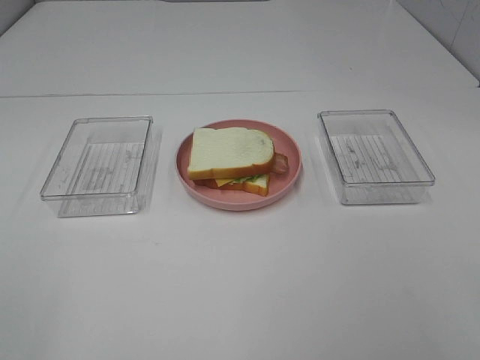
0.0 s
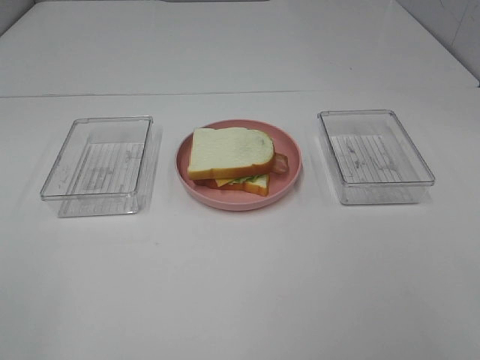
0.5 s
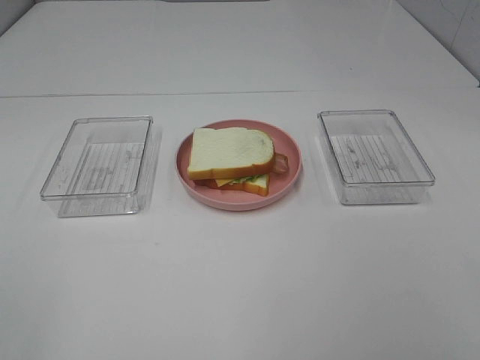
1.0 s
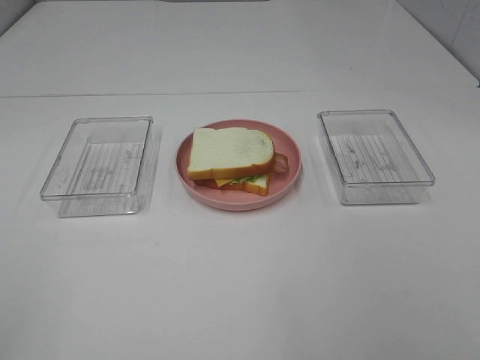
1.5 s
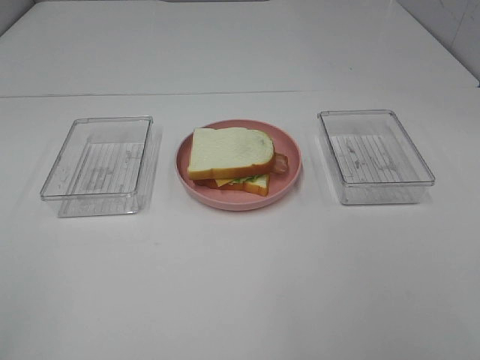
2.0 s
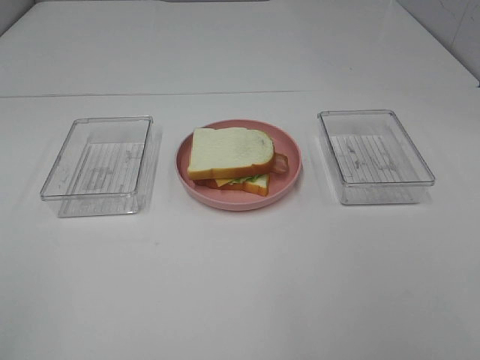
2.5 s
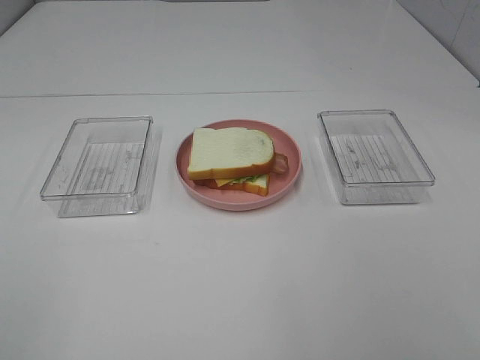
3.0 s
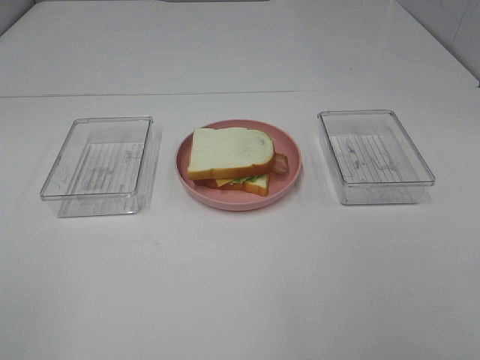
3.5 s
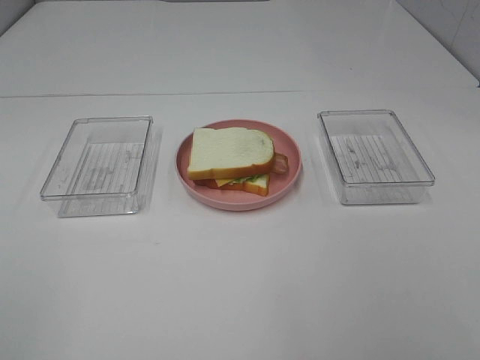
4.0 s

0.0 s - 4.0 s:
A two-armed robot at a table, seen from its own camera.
Task of the whole recording: Make sandwiches.
2.0 s - 4.0 s: The two grippers keep their place.

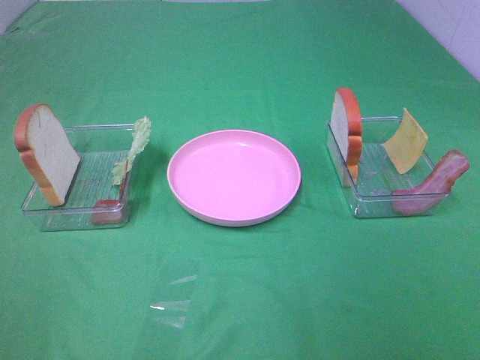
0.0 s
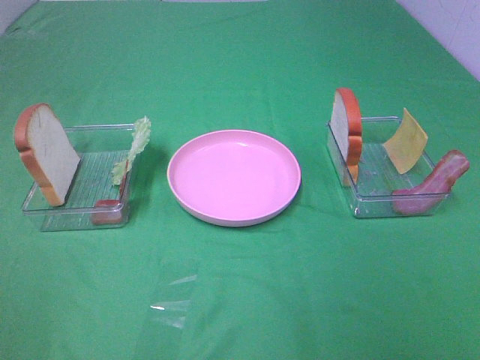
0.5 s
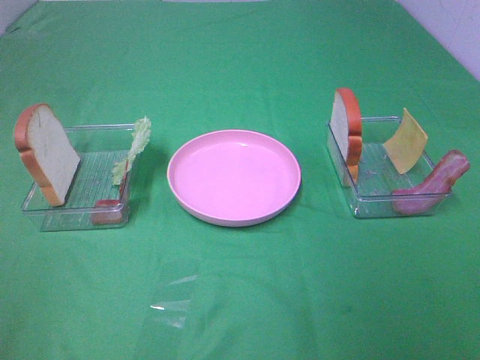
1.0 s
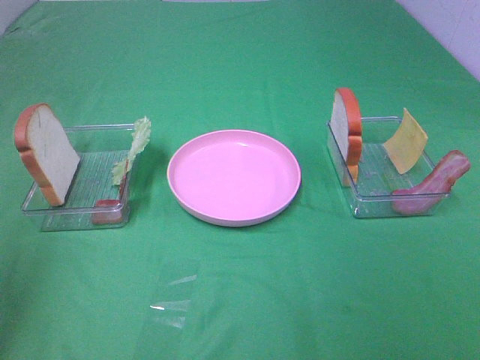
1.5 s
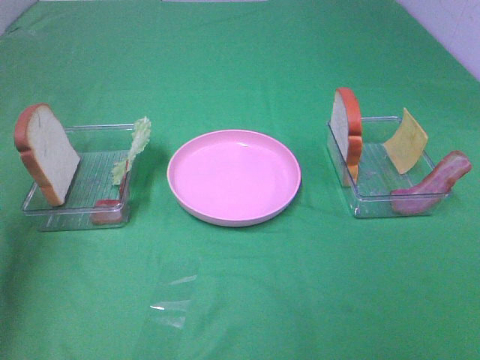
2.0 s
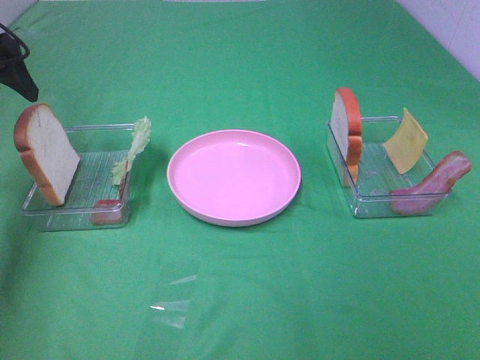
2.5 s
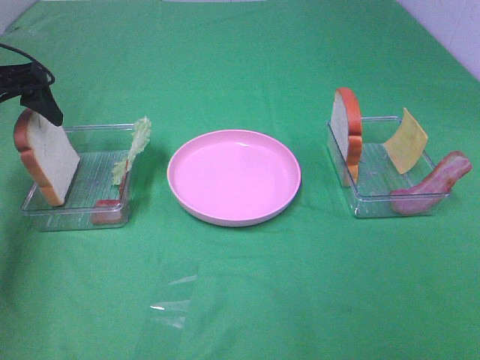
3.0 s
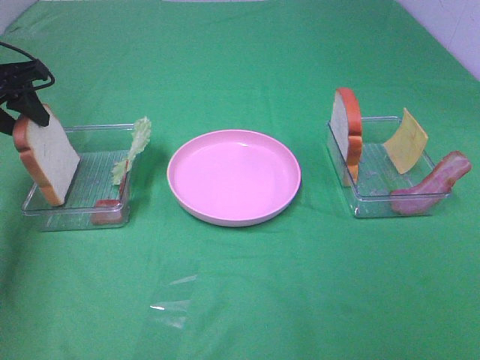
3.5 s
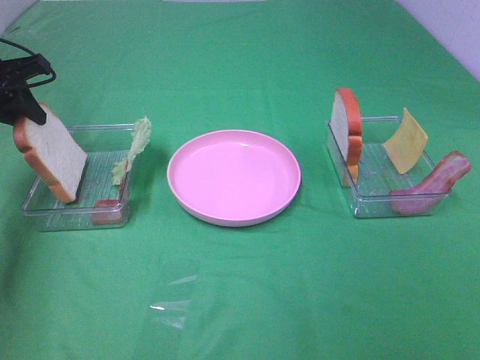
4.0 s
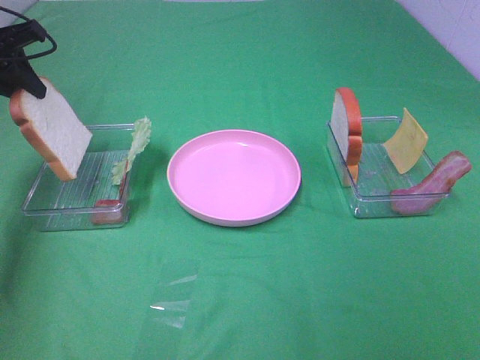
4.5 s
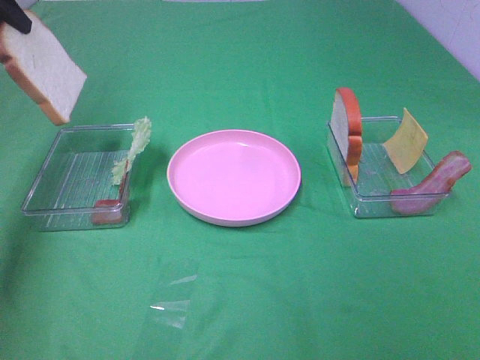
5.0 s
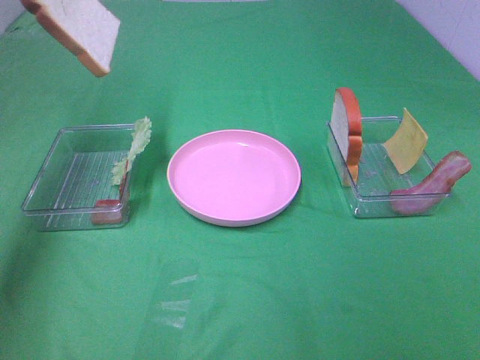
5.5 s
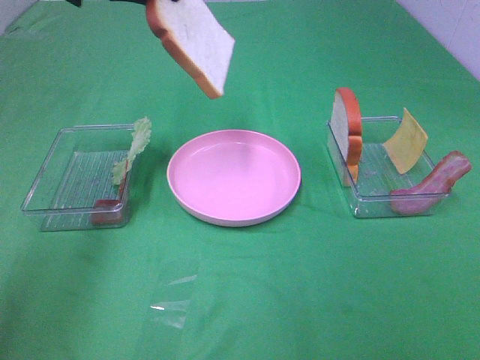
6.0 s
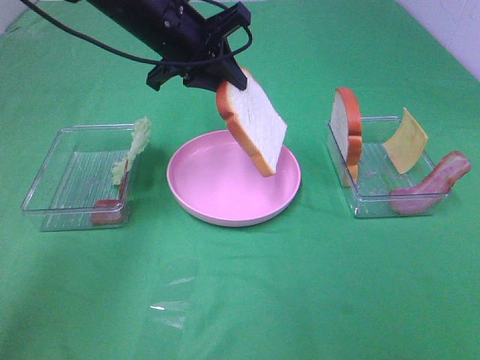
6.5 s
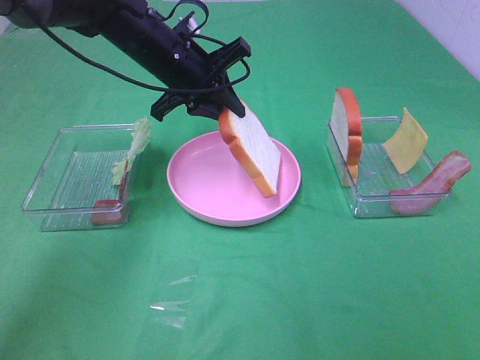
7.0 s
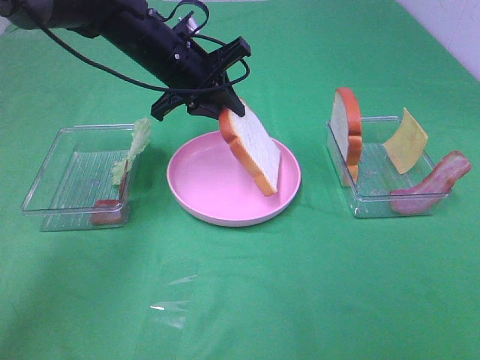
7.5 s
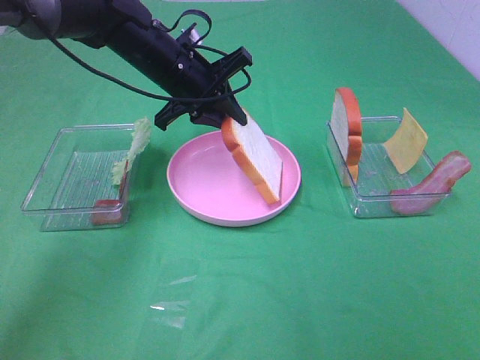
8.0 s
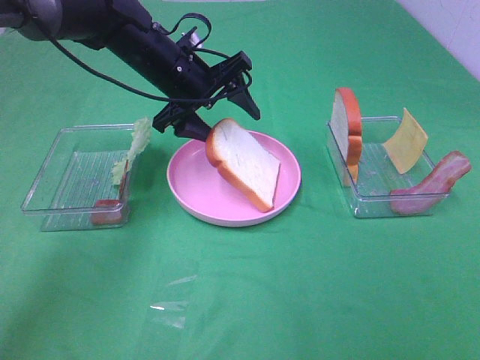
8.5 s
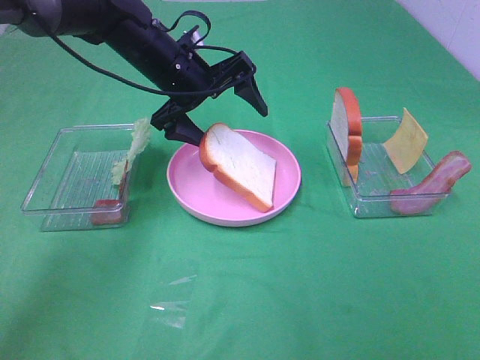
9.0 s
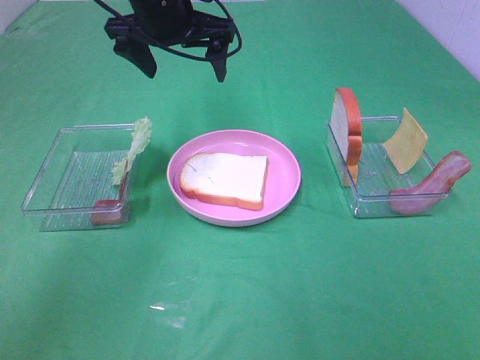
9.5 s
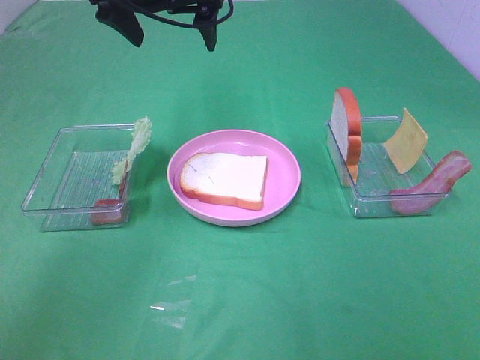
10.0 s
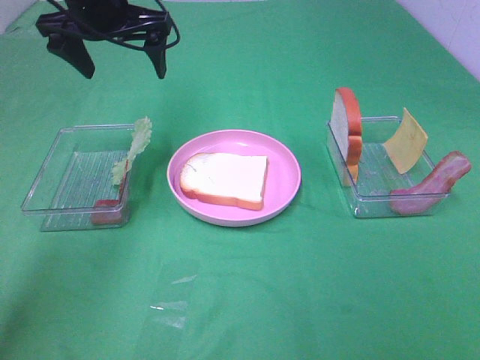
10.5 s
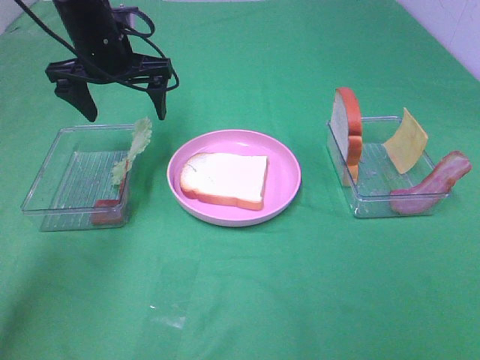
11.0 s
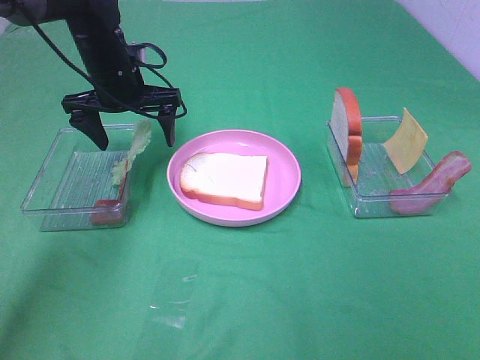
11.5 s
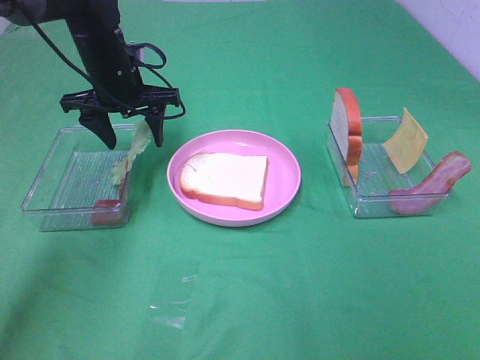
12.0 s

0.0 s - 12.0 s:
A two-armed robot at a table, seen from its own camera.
Task of the whole recording: Make sandwiches.
Step, 0.0 s - 4.0 s: Left hand:grab the bread slice.
Step, 4.5 s - 9.0 s: Left hand:place the bread slice on the plate.
0.0 s - 2.0 s: The left gripper heads forward, covering about 30 cm.
2.0 s - 4.0 s: The left gripper travels forward and downward by about 15 cm, and closes up.
4.0 s - 6.0 s: The left gripper moves to the right and upward, some 20 cm.
6.0 s - 8.0 s: The left gripper is displaced downward and to the right by roughly 15 cm.
8.0 s - 10.0 s: The left gripper goes some 15 cm upward, and opens up.
10.0 s - 12.0 s: The left gripper shifts approximately 15 cm downward and to the left.

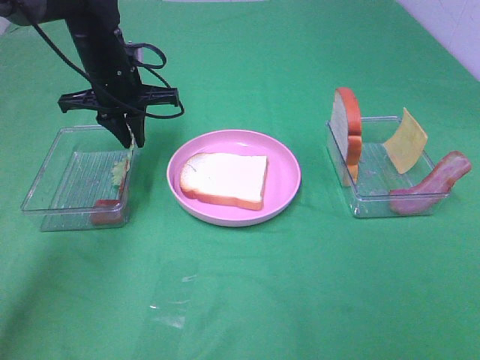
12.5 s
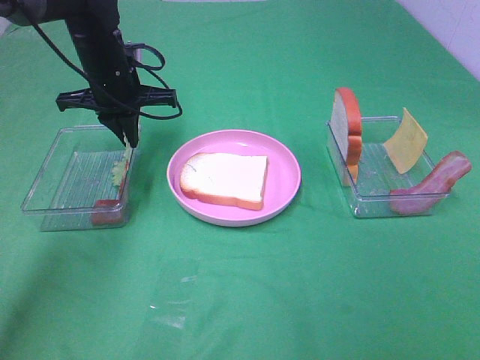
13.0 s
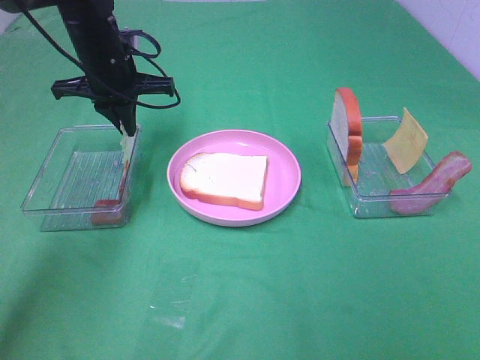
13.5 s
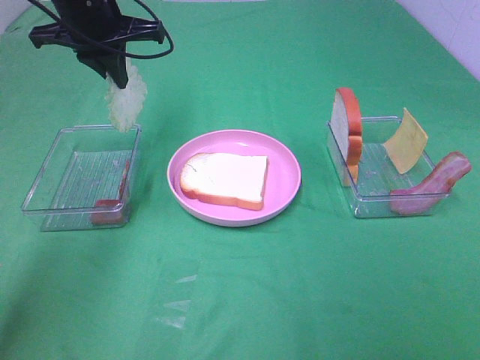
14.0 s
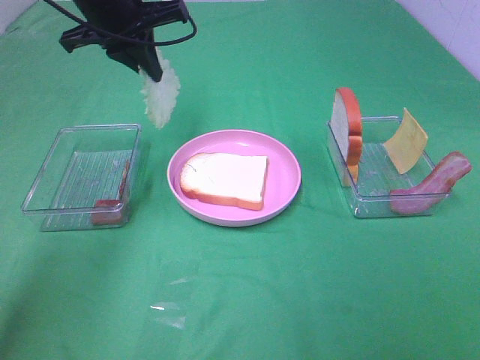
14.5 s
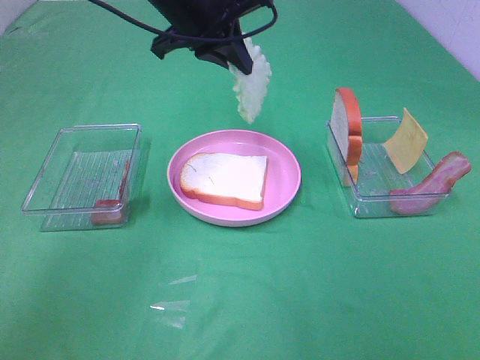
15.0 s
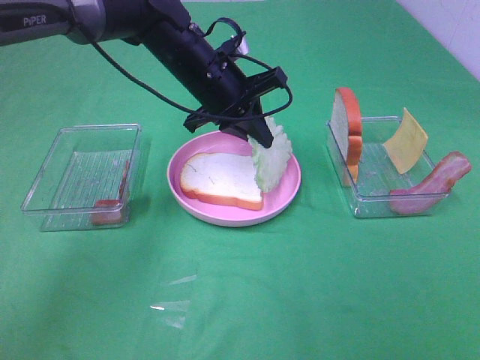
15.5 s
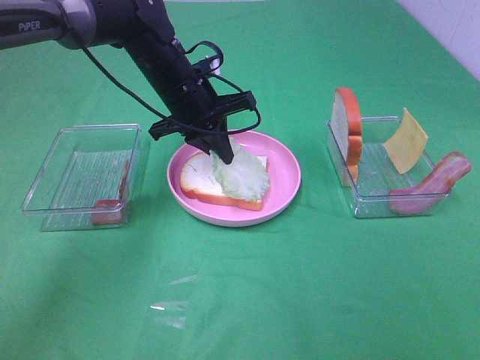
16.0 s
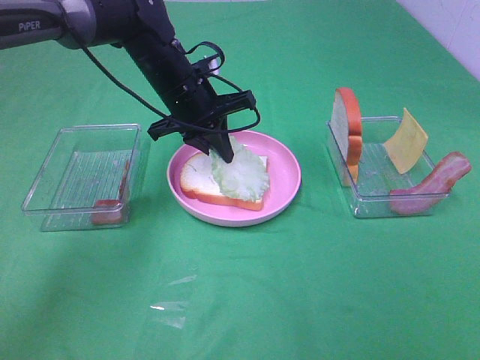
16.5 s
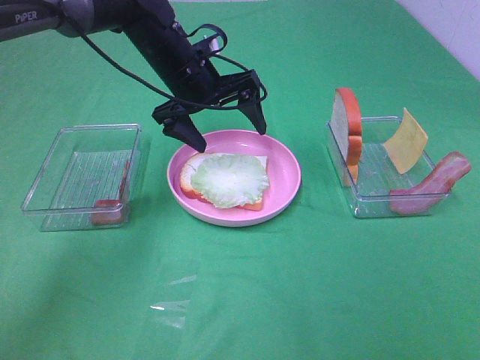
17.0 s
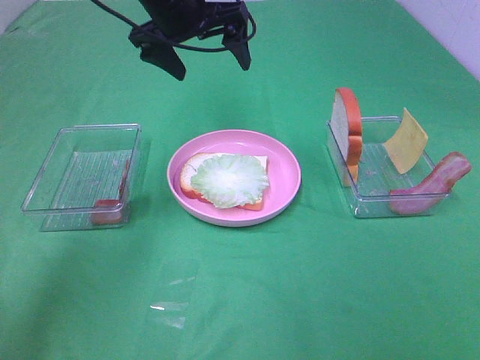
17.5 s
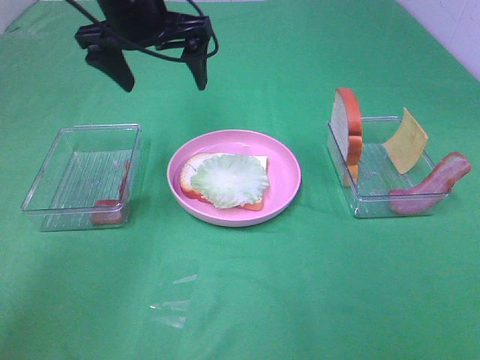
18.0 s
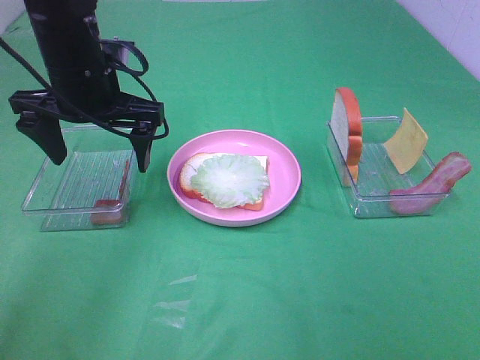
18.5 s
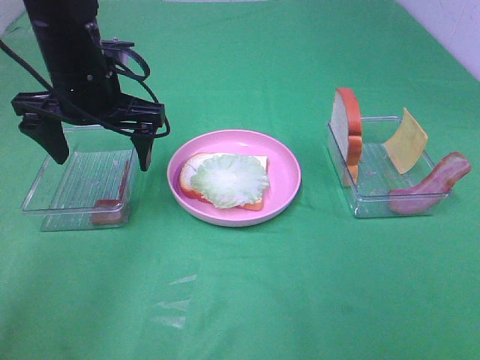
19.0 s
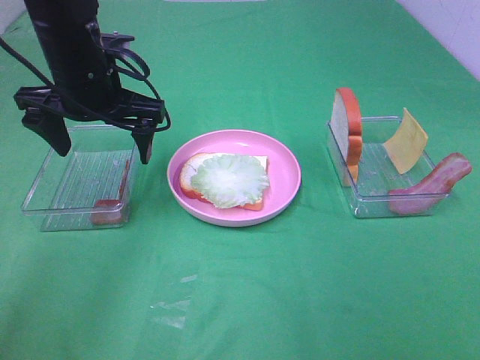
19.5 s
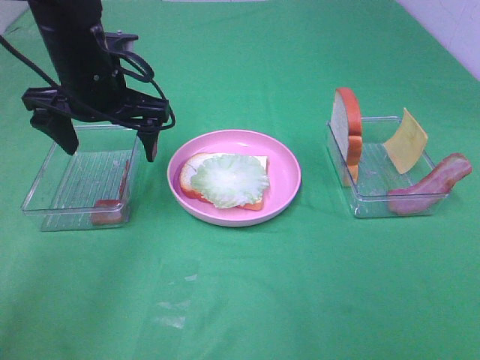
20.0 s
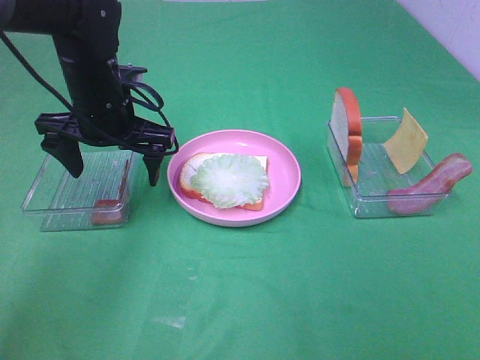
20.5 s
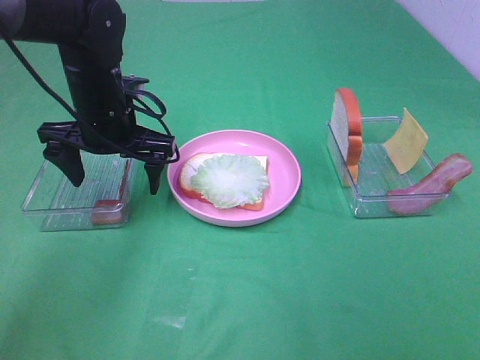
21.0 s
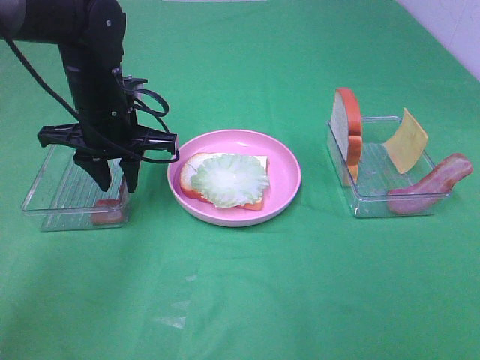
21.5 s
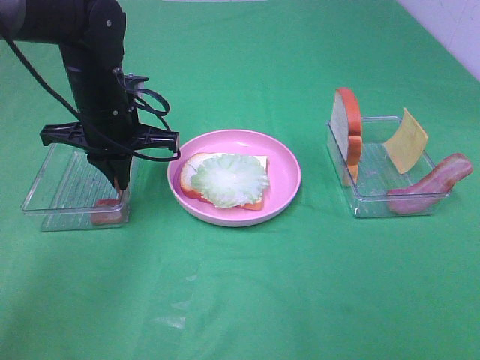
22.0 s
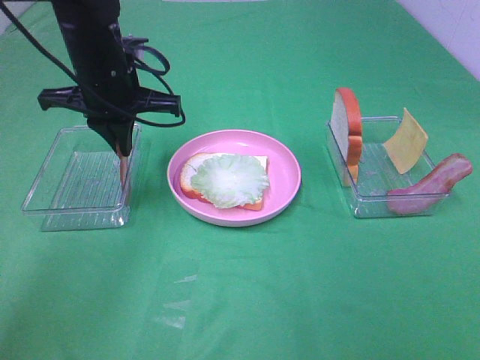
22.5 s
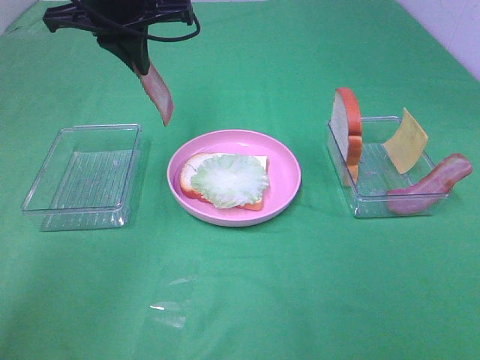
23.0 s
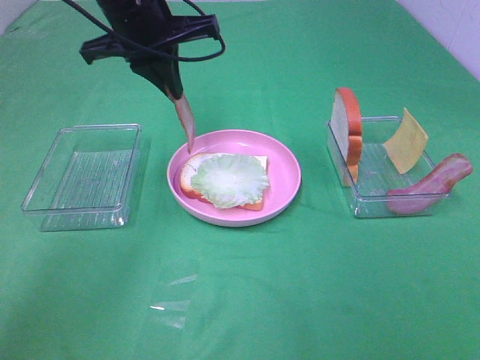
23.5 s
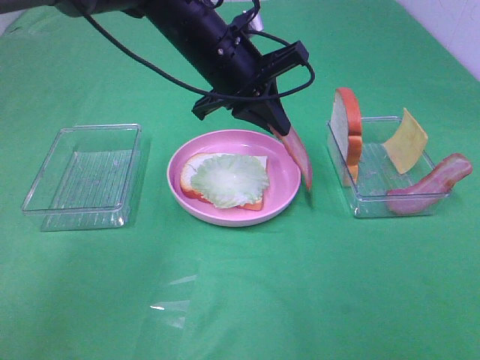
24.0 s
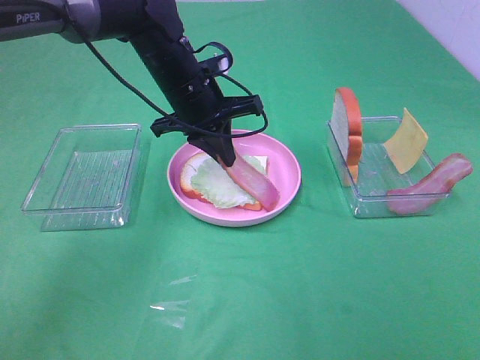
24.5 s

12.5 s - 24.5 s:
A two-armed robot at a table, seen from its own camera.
Task of the whole recording: Make sandwiches.
Step, 14.0 s - 16.5 s: Left hand:place the lettuce slice on the bread slice.
Step, 17.0 s - 22.0 s: Left hand:grab the bacon.
12.5 s - 14.5 s: The left gripper is displaced upward by roughly 10 cm.
14.5 s - 16.5 s: The left gripper is displaced downward and to the right by roughly 15 cm.
16.5 s - 18.5 s: The left gripper heads to the left, backward and upward, covering approximately 15 cm, and opens.
18.5 s - 20.5 s: The left gripper ends up about 5 cm from where it was.
20.5 s - 22.5 s: The left gripper closes up.
22.5 s - 24.5 s: The left gripper goes approximately 10 cm to the right and downward.
